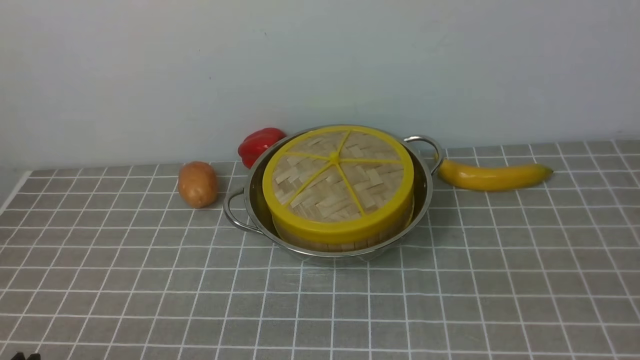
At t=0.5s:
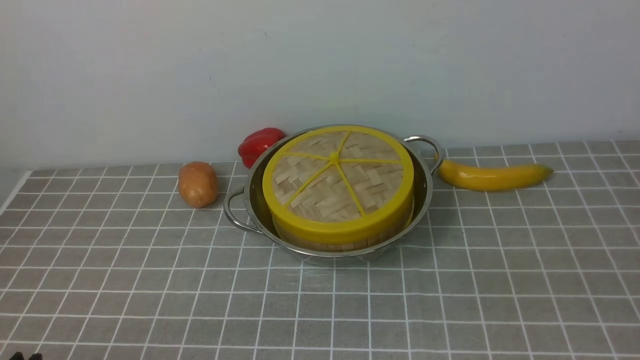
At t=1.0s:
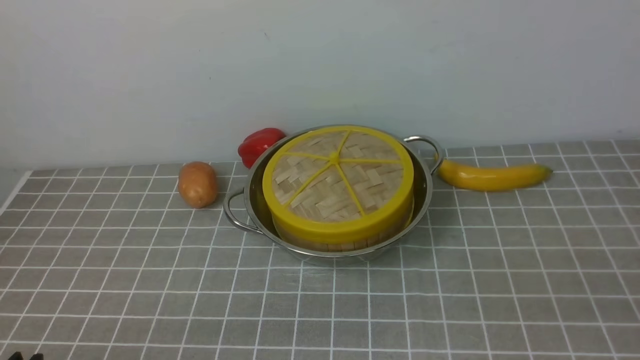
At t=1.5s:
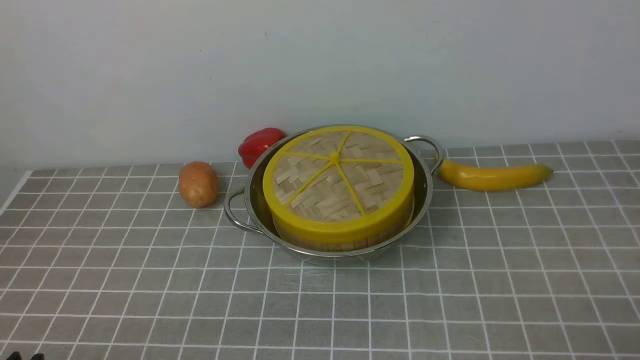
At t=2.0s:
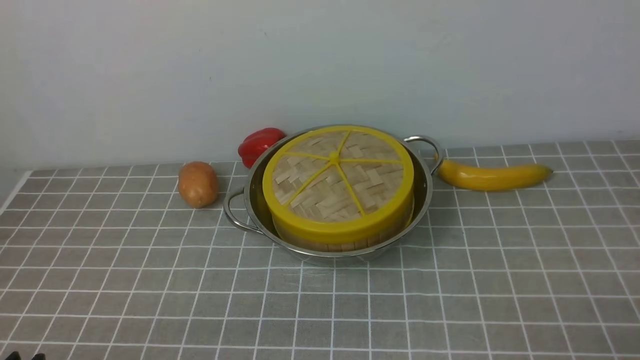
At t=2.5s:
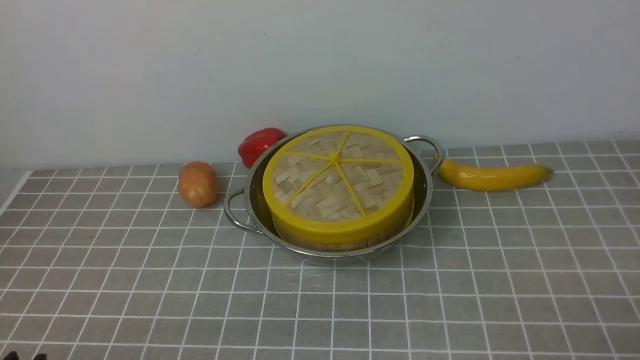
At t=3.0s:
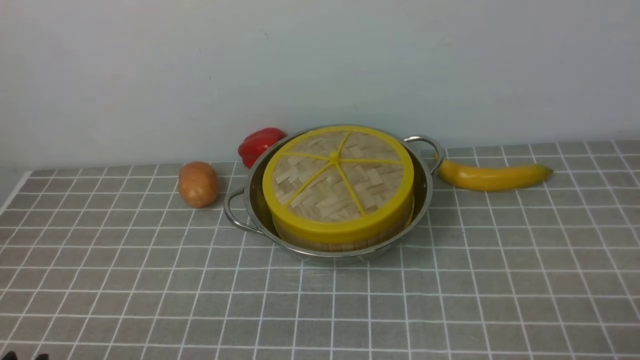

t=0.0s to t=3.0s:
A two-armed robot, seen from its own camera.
Task of the whole recording: place the steamer in the pot on the grey tablecloth, and put the lid on the steamer.
t=1.5s to t=3.0s: Both grippers stay about where they are.
